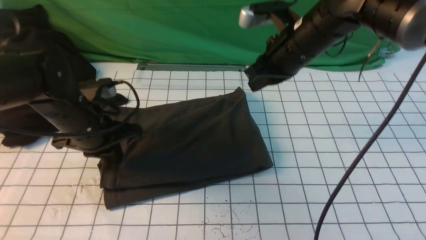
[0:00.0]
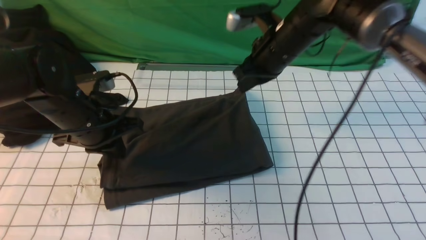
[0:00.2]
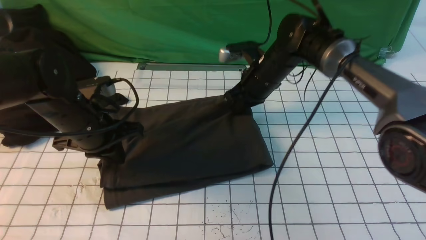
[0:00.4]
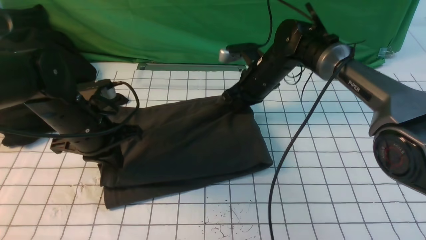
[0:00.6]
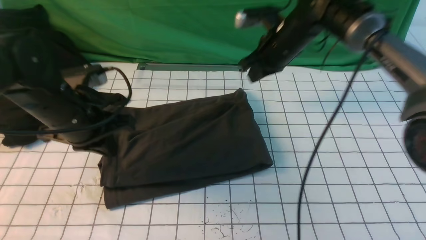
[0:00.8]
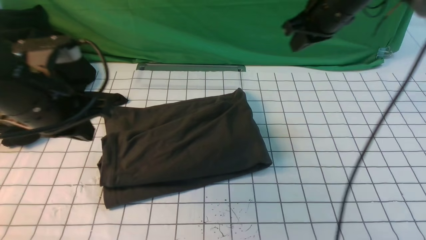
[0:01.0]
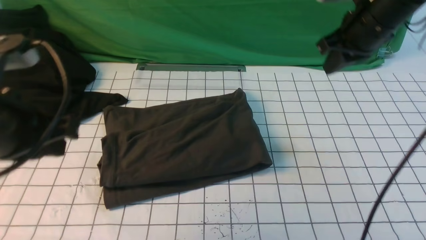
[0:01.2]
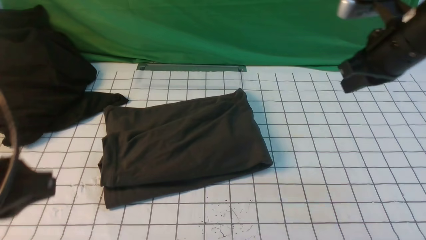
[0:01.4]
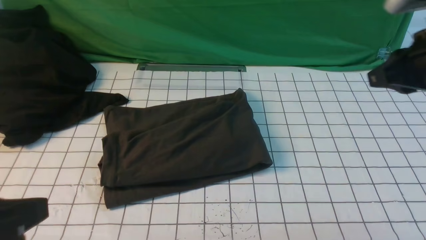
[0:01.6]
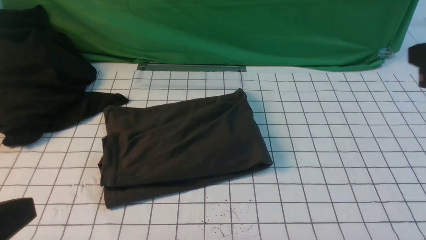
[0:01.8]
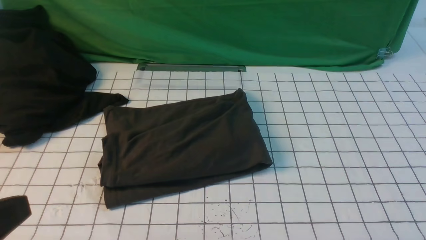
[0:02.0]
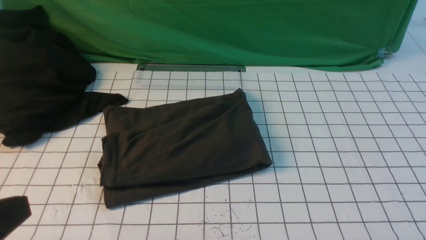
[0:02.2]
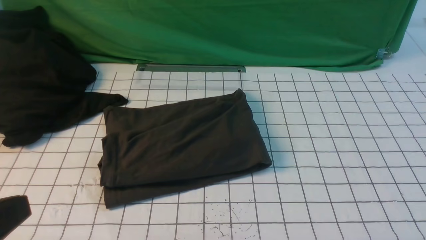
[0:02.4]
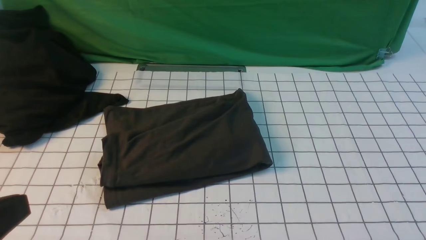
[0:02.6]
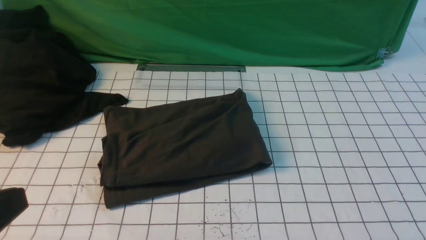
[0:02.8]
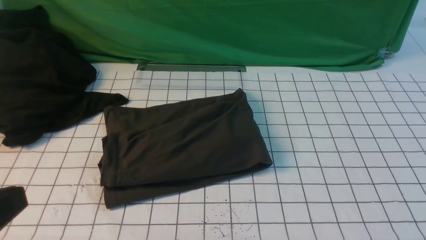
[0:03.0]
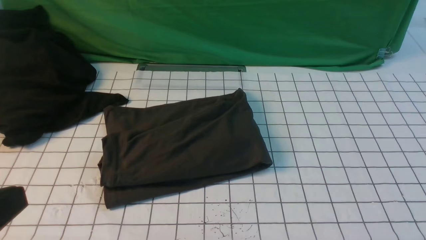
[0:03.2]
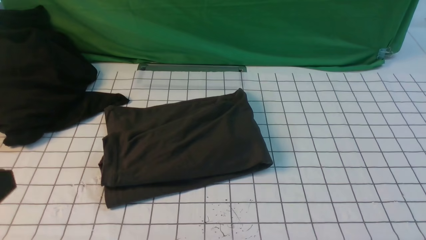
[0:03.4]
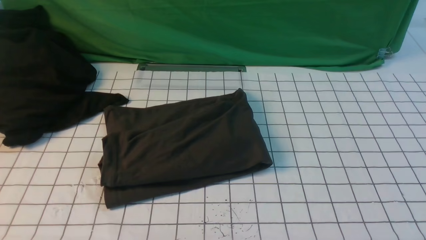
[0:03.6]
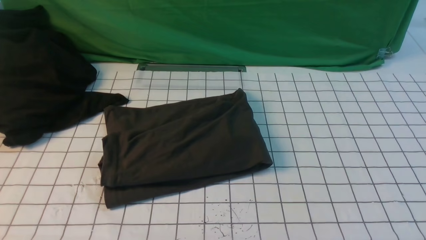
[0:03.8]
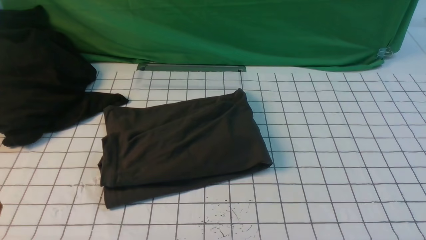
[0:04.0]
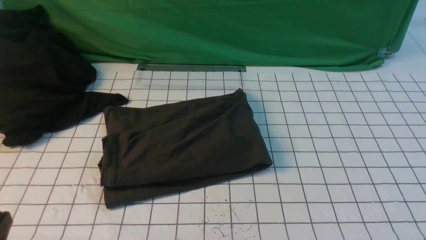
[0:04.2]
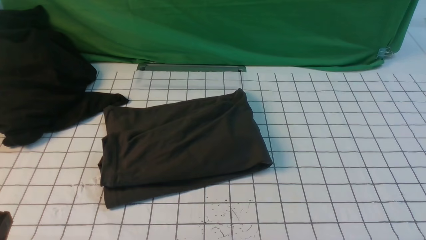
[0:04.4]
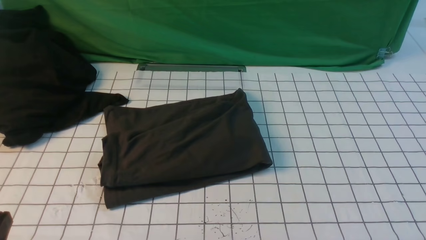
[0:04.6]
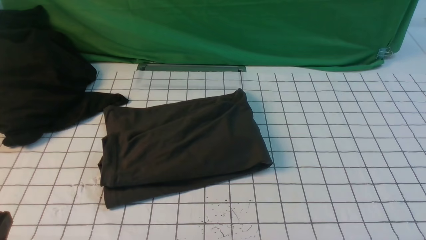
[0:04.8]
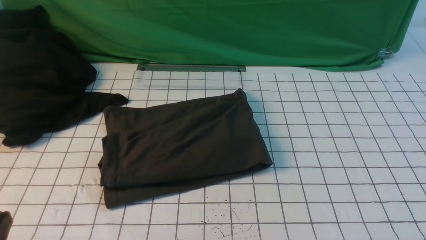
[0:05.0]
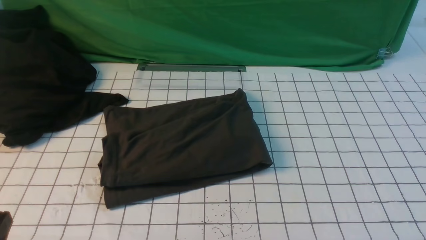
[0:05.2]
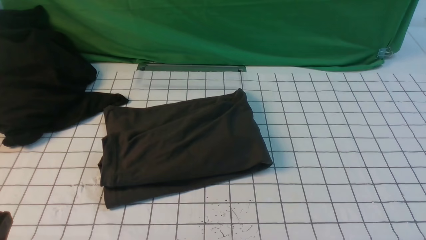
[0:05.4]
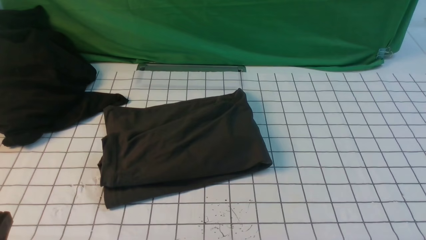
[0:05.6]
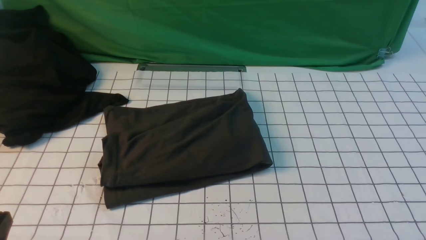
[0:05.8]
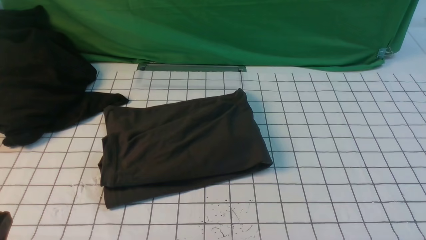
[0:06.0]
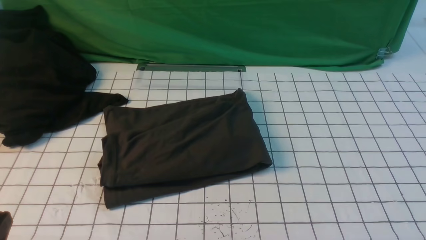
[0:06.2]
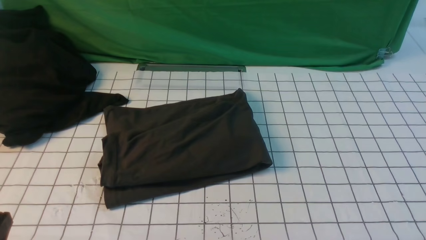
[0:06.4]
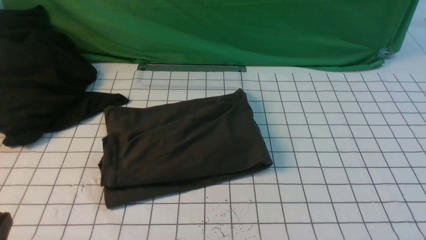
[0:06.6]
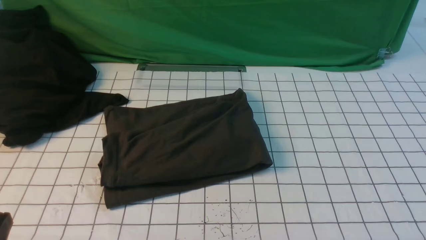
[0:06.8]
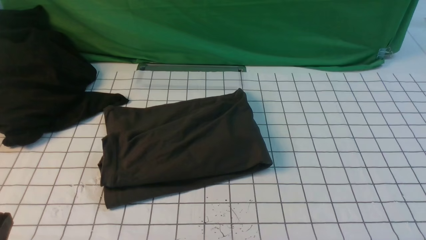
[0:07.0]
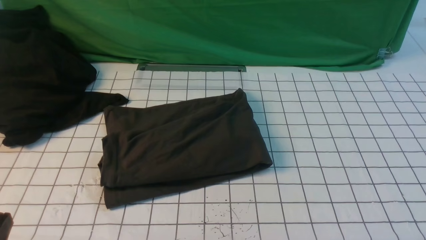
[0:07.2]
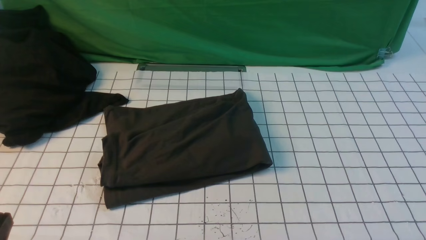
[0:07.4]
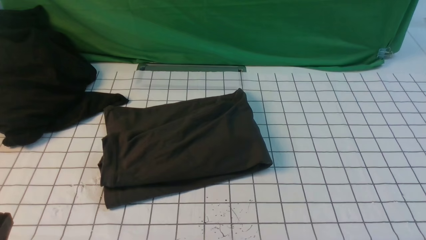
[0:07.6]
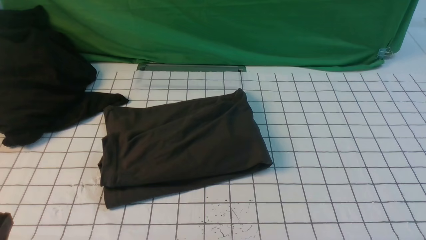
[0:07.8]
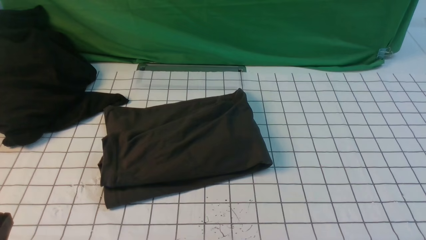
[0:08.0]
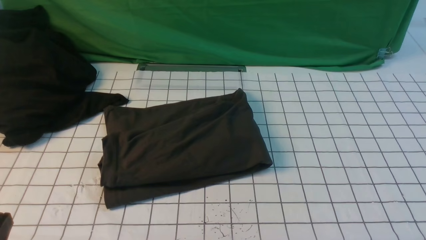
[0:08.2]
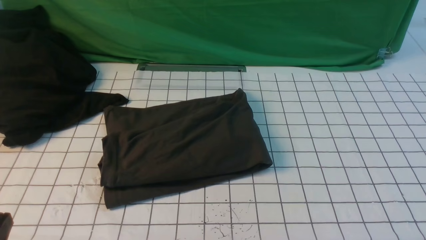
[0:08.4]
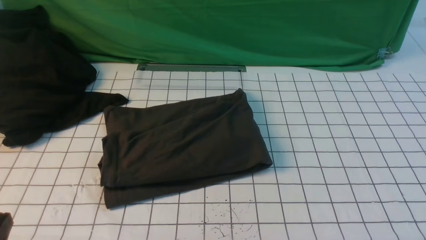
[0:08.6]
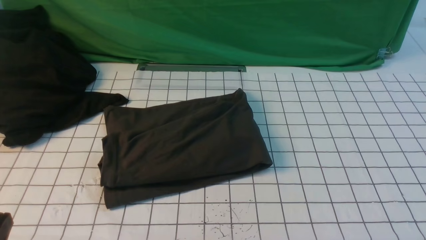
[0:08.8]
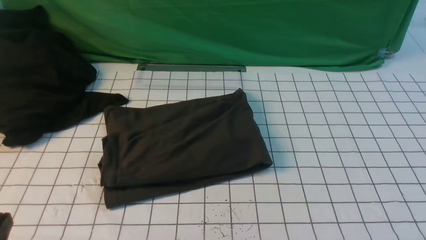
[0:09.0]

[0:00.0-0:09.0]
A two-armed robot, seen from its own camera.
0:00.0 to 0:01.6: The right gripper moves to the right, backward and upward, approximately 25 cm. Meanwhile the left gripper moves backward and upward, approximately 30 cm.
0:01.6 to 0:03.0: The right gripper moves backward, roughly 25 cm.
0:03.0 to 0:04.4: The left gripper moves downward, some 15 cm.
0:07.6 to 0:09.0: Both grippers stay about where they are.
